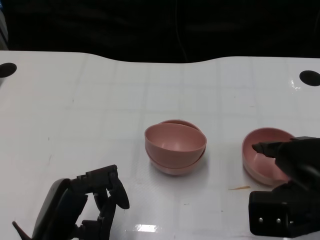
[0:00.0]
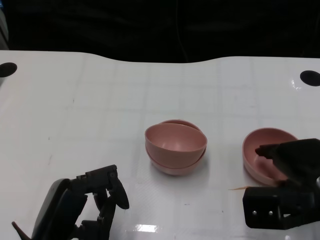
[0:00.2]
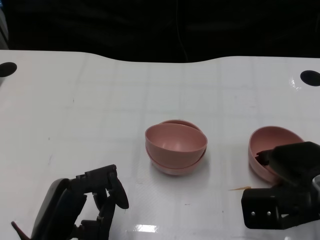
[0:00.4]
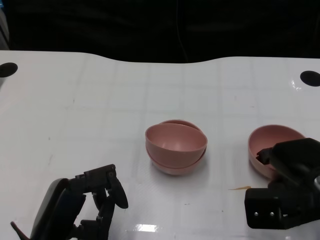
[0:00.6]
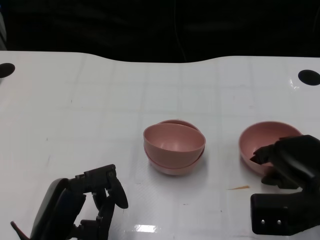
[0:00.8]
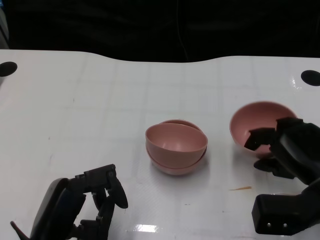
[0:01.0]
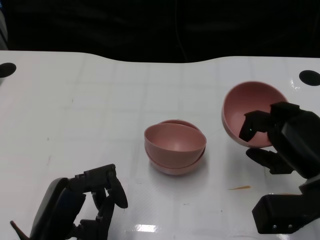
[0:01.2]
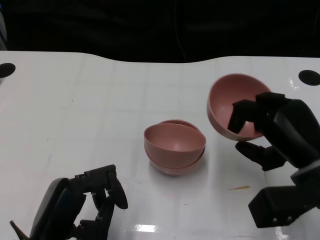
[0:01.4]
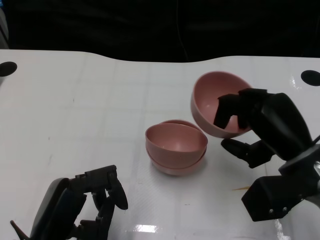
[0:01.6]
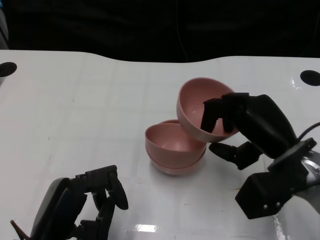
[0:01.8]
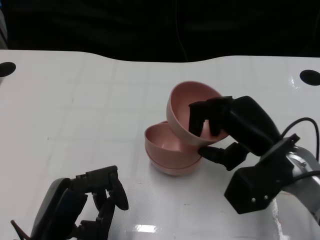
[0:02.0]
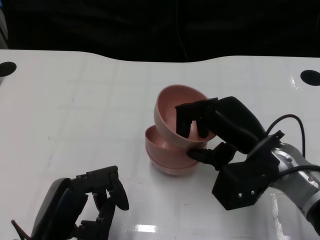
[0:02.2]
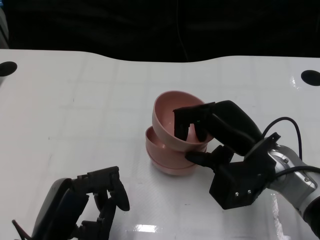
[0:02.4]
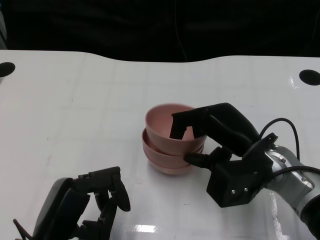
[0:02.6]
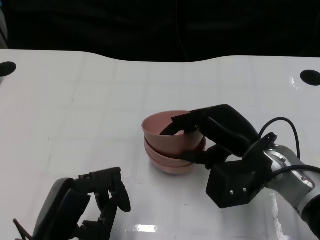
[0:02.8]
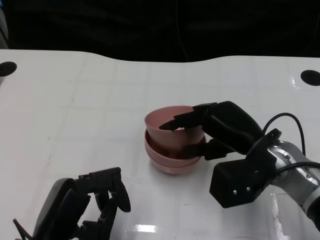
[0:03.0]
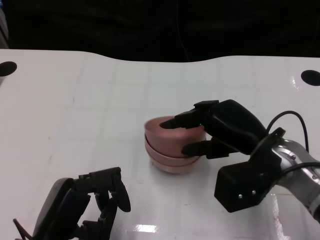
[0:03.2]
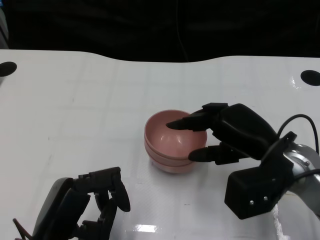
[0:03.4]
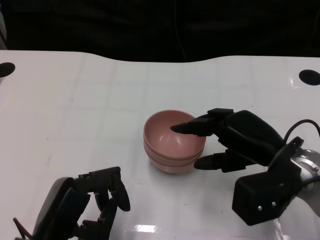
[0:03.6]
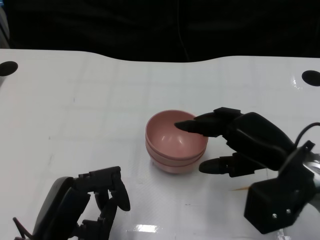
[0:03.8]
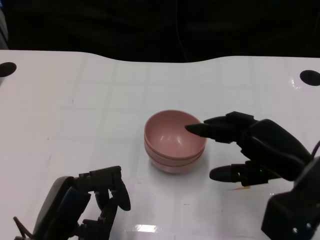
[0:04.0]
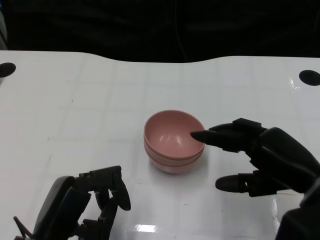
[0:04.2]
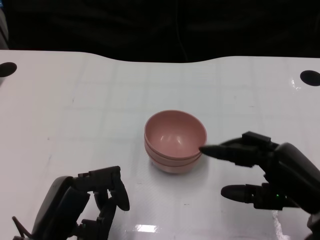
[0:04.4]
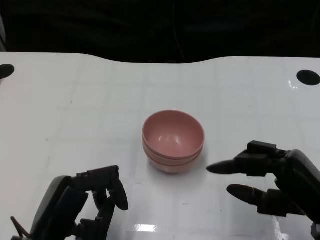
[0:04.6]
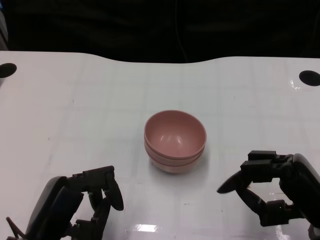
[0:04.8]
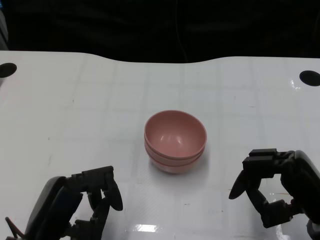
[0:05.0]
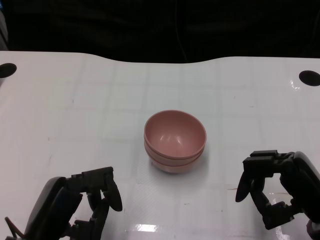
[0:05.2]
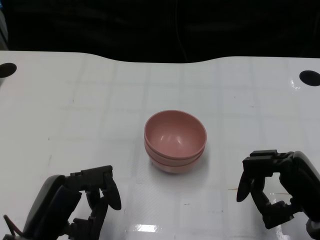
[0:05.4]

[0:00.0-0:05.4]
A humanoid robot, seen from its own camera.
Task of the whole recording: Pick up the bowl on one side of the table and place it on top of the middle bowl, then pick up the bowl on the other side of the table and place it on top of the middle bowls.
Step, 0:01.0 to 0:03.8: Place the bowl on the right onto the bowl in the middle with right gripper.
0:01.4 to 0:02.8: The right hand travels to the left by about 5 cm.
0:02.8 to 0:04.0: The right hand goes some 5 cm to the right.
0:04.0 to 0:05.4: The right hand travels downward by about 5 cm.
